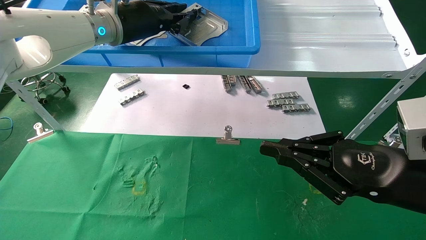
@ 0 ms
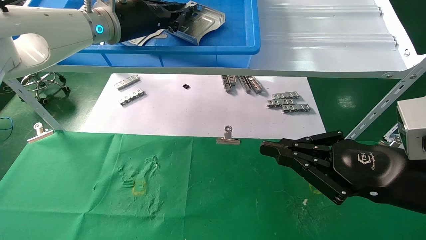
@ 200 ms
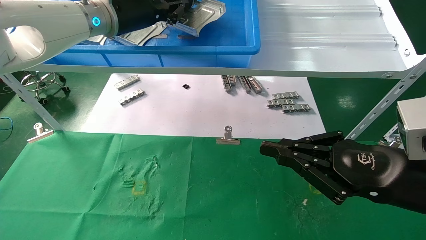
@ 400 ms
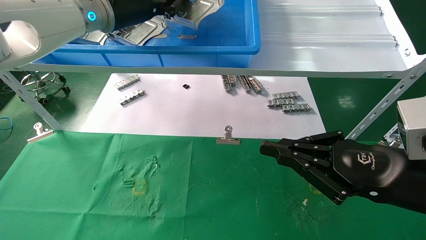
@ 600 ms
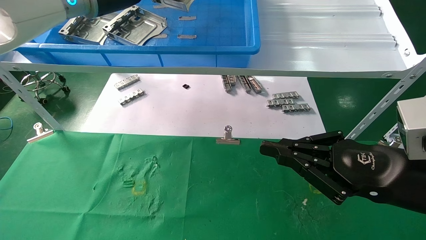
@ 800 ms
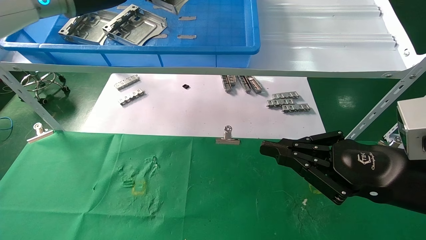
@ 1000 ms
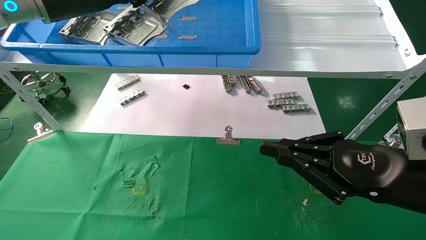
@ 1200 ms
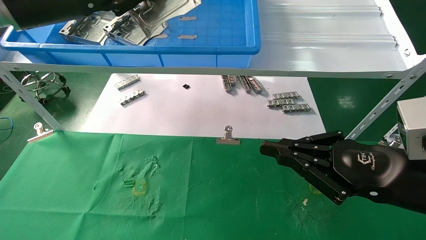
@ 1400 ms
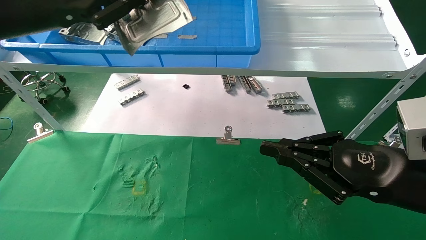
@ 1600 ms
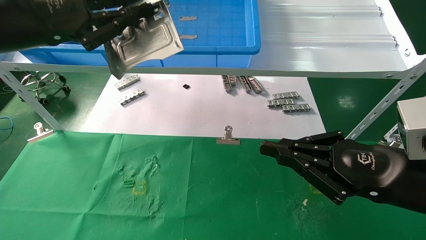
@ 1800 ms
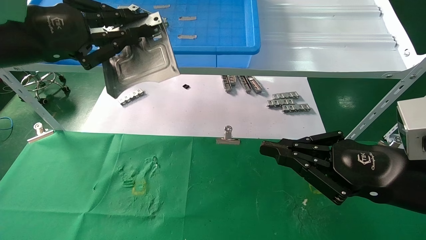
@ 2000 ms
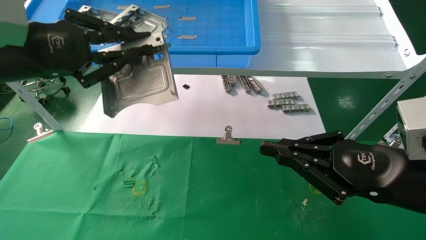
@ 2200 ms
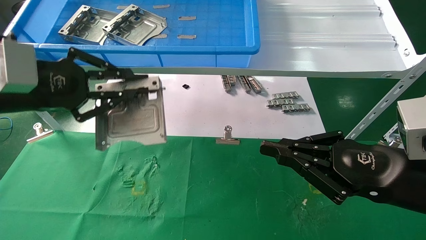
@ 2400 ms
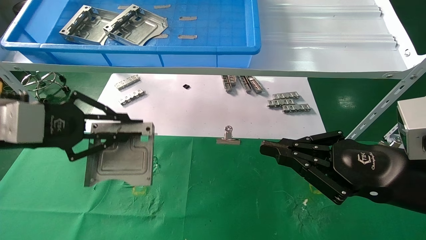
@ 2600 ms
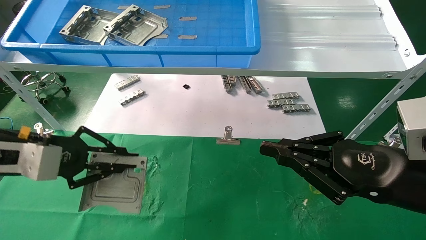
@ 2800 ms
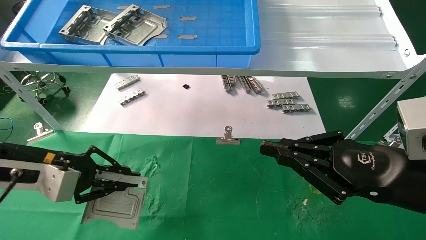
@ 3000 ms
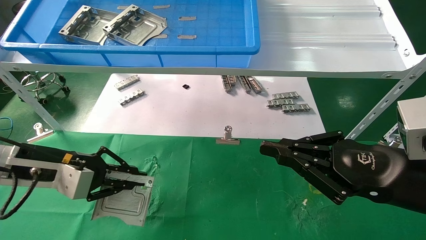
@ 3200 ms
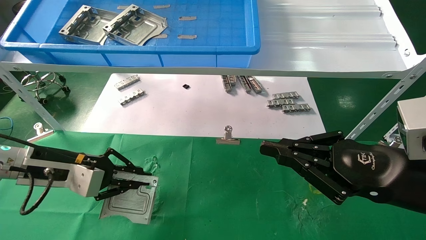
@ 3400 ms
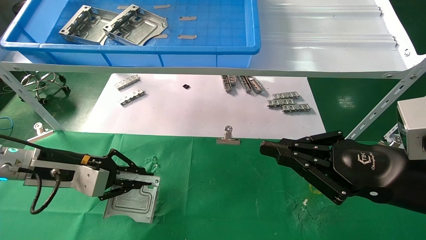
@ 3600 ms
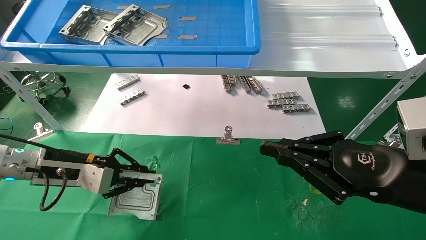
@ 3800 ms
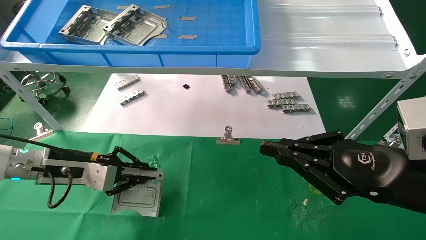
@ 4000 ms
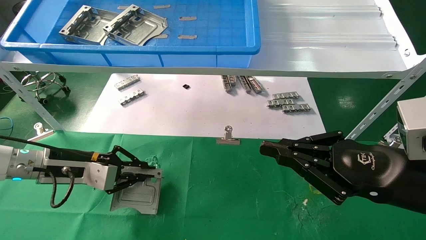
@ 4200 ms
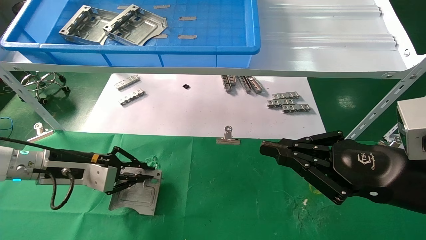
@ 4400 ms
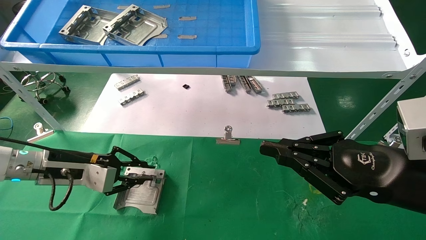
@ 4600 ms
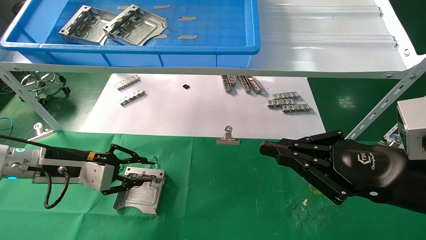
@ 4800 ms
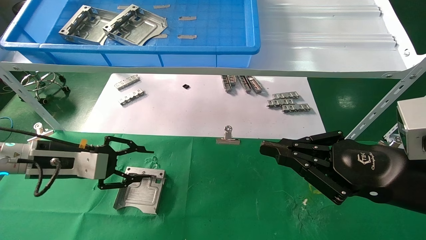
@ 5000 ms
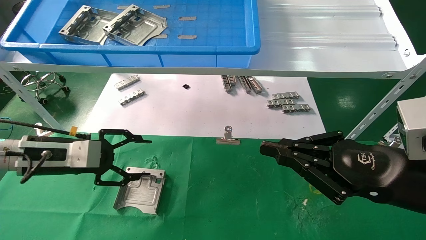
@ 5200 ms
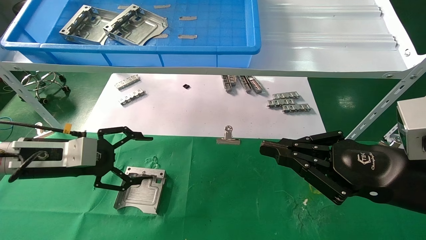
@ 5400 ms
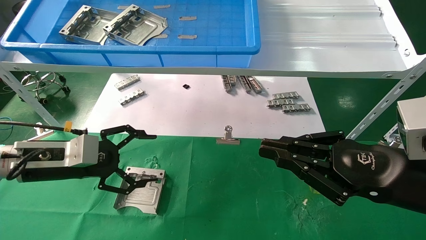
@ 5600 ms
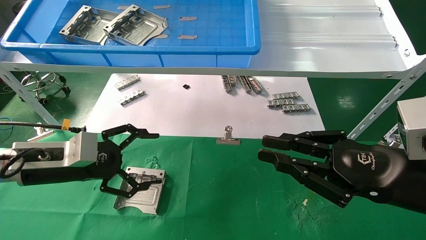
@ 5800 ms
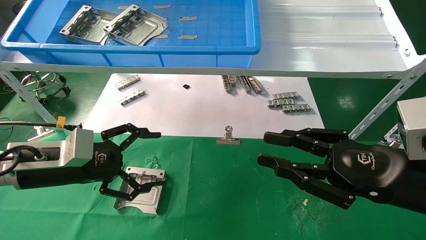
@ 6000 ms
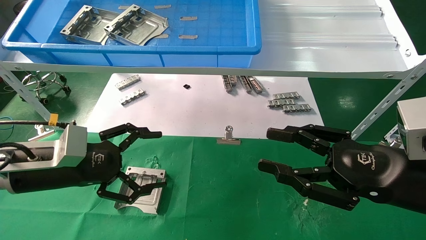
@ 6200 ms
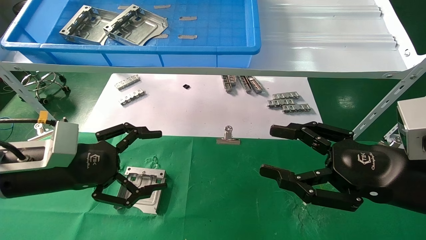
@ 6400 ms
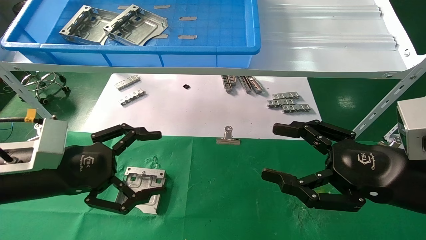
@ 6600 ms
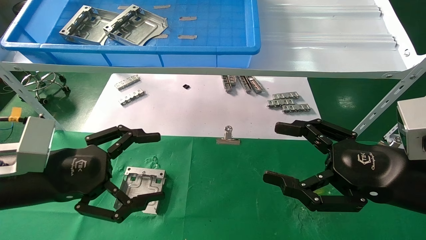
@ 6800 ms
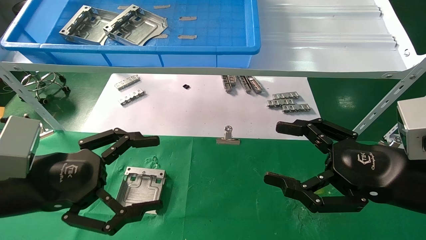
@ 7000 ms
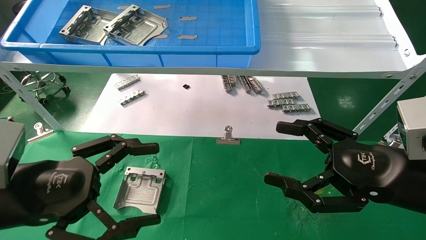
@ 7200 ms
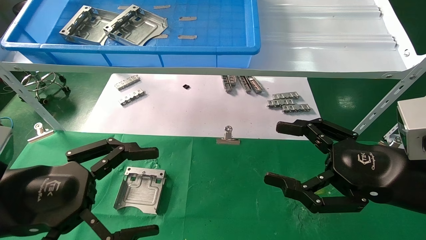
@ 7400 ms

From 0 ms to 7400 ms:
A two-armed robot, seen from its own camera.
Task of the whole recording: use the mechanical arm to pick up the parts and place them on the table.
Step, from 400 ms to 4600 ms: Place the hard drive bracket into the box.
From 0 ms to 1400 ms: The left gripper heads backward and to the left, covering some 15 cm.
From 1400 ms to 3000 ms: The left gripper is displaced downward by approximately 20 cm.
From 3000 ms to 4400 ms: The left gripper heads forward and downward, covering about 10 cm.
From 4400 ms to 6000 ms: The left gripper travels backward by some 5 cm, and opens.
From 6000 ms to 7400 ms: The right gripper opens. Meanwhile the left gripper is displaced backward by some 15 cm.
